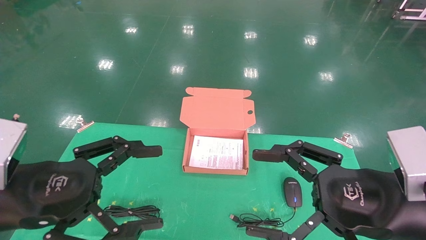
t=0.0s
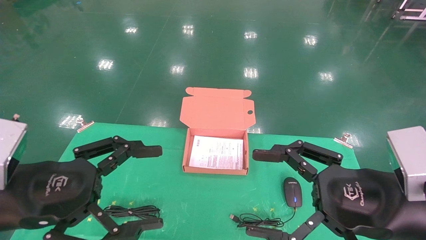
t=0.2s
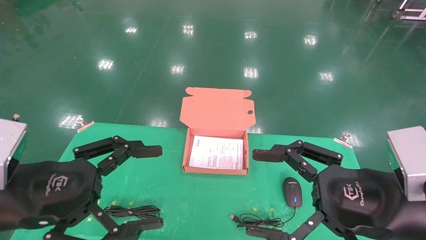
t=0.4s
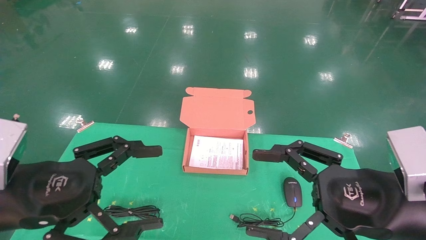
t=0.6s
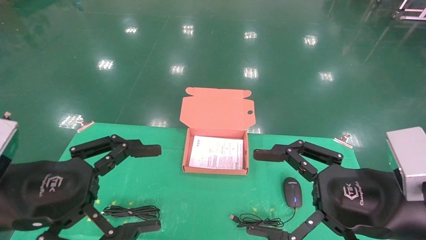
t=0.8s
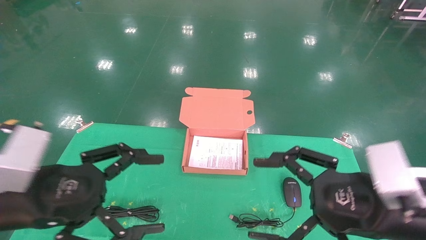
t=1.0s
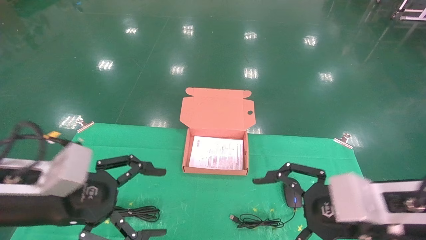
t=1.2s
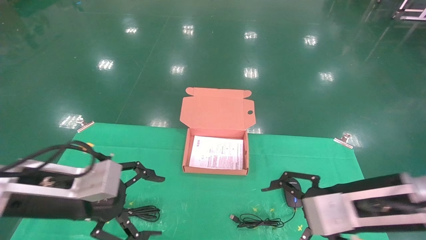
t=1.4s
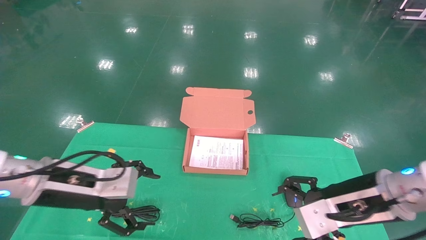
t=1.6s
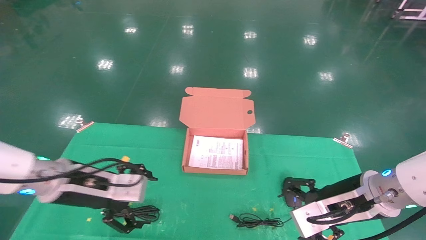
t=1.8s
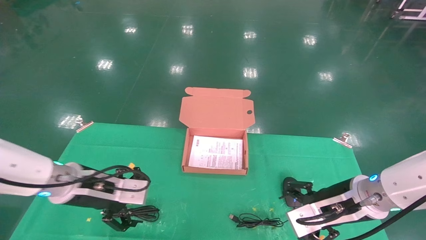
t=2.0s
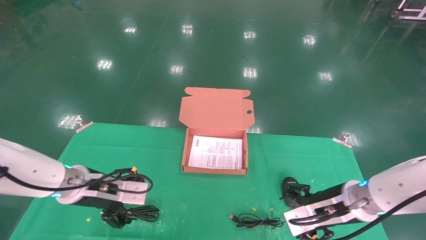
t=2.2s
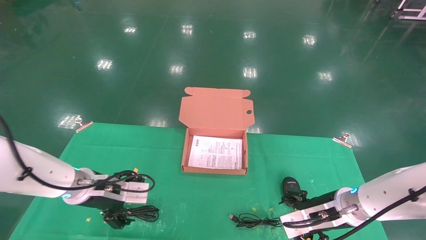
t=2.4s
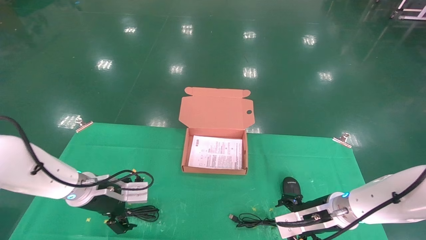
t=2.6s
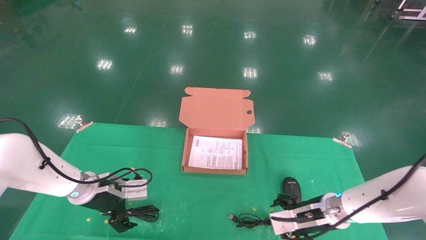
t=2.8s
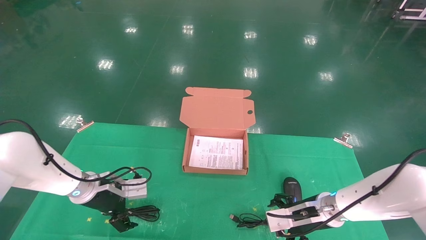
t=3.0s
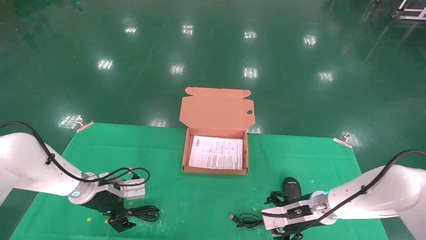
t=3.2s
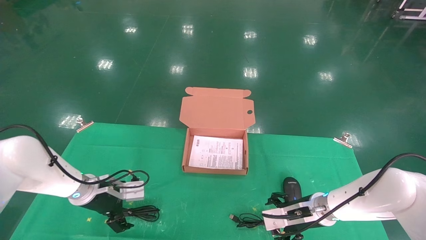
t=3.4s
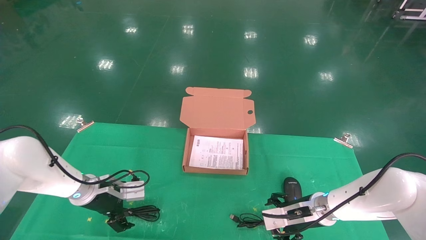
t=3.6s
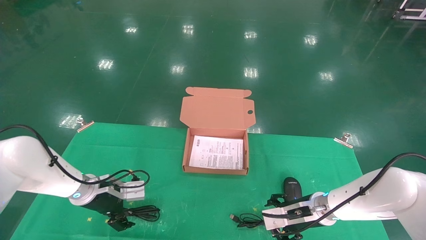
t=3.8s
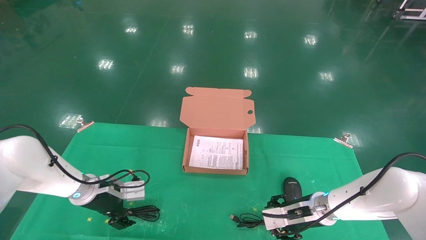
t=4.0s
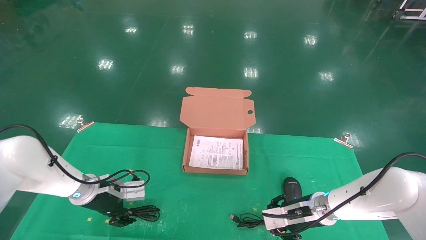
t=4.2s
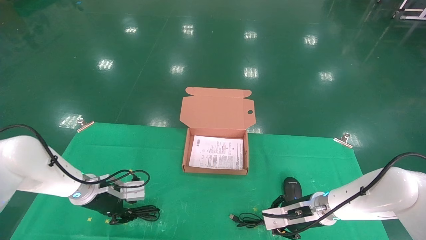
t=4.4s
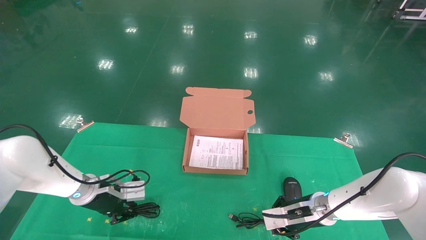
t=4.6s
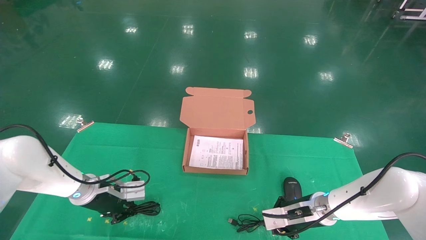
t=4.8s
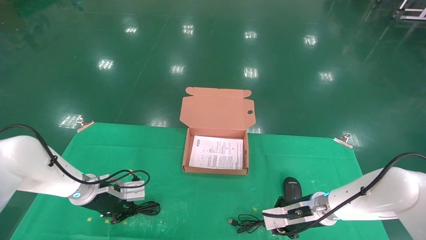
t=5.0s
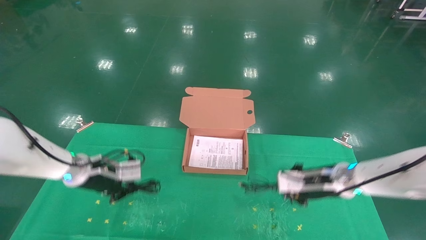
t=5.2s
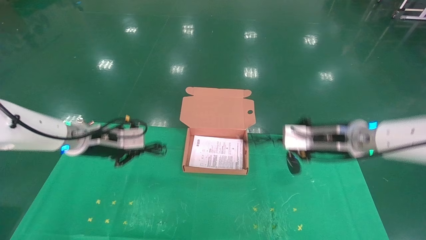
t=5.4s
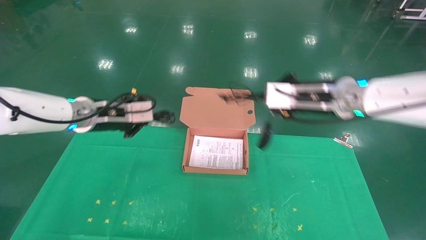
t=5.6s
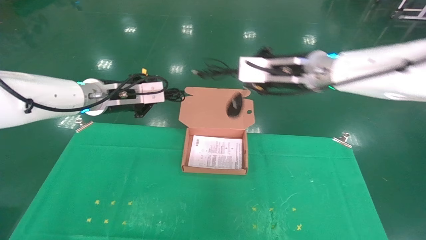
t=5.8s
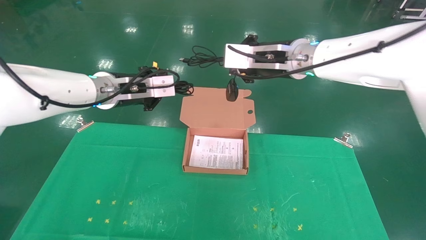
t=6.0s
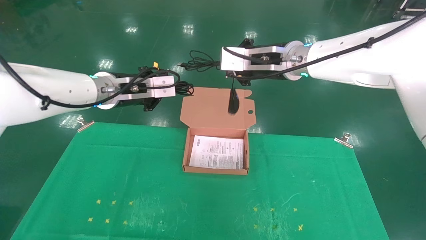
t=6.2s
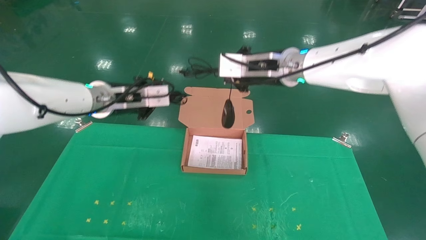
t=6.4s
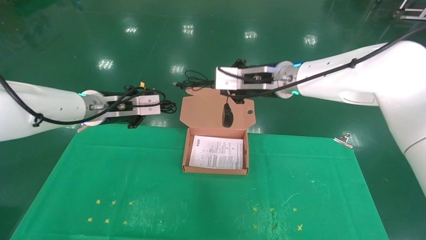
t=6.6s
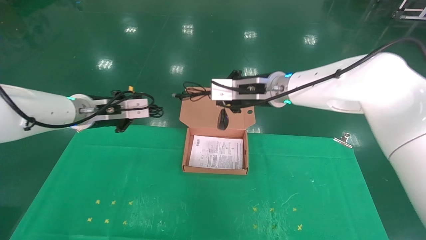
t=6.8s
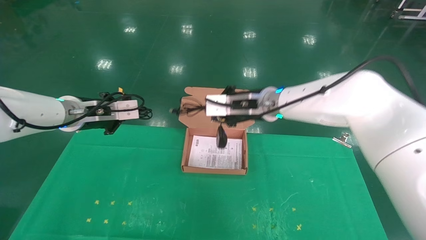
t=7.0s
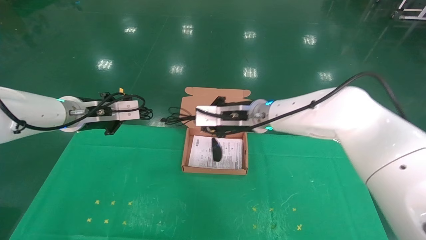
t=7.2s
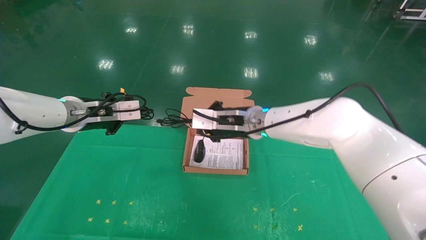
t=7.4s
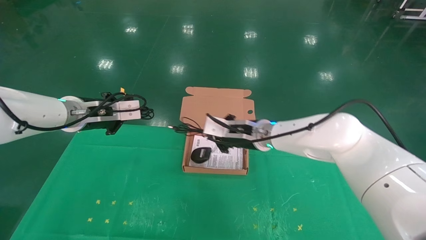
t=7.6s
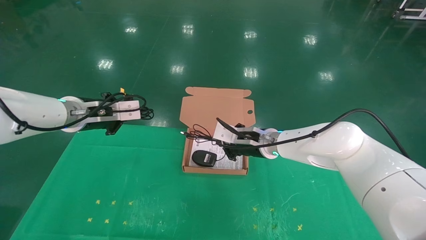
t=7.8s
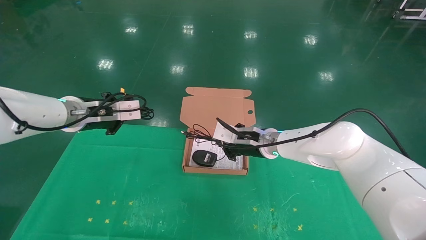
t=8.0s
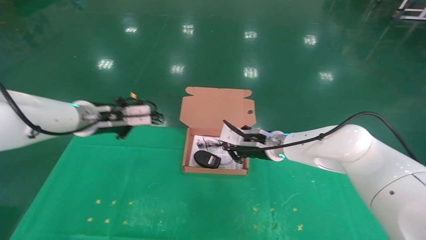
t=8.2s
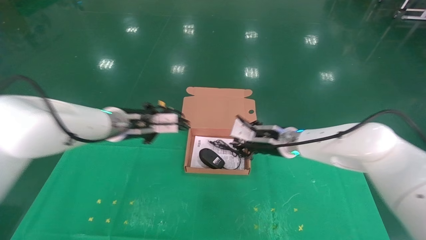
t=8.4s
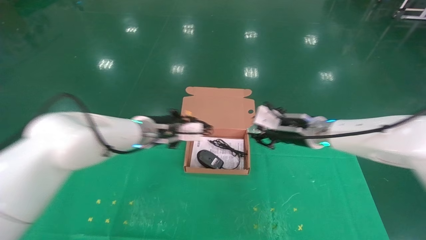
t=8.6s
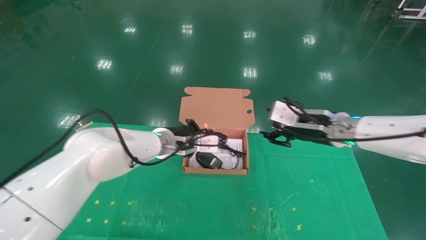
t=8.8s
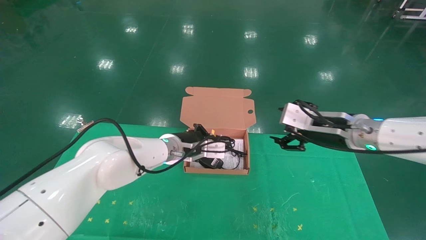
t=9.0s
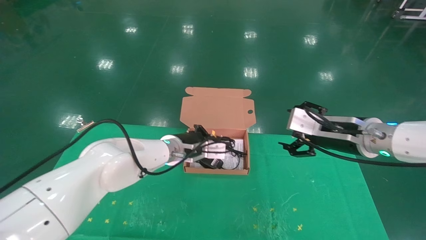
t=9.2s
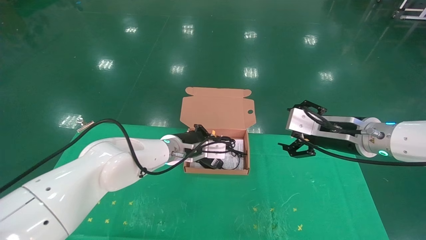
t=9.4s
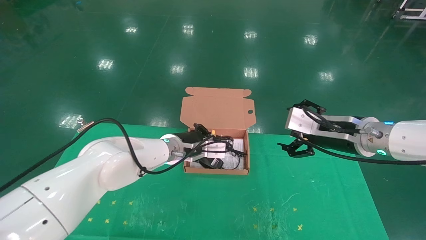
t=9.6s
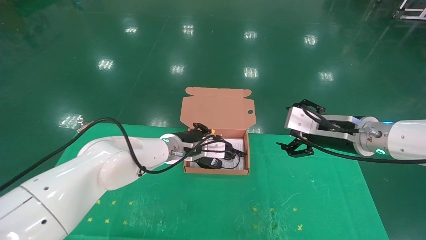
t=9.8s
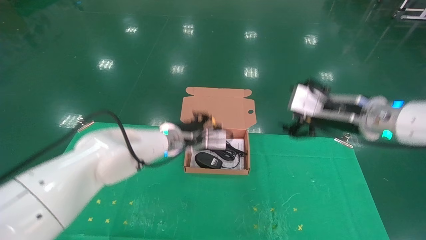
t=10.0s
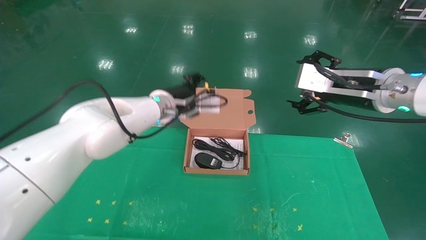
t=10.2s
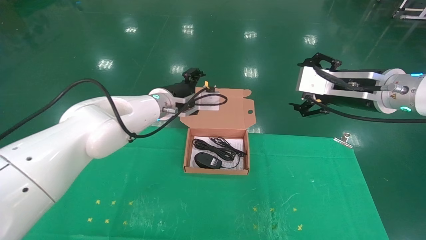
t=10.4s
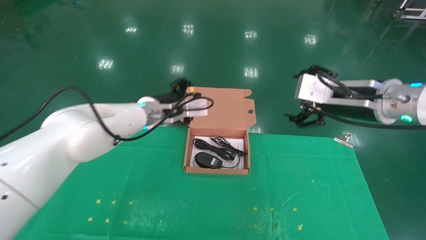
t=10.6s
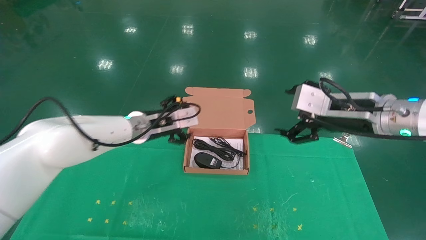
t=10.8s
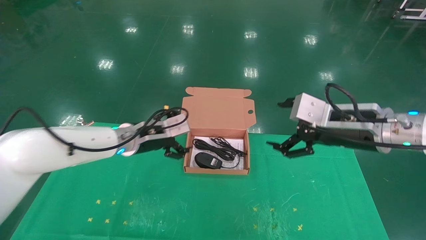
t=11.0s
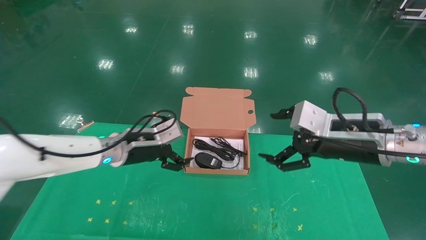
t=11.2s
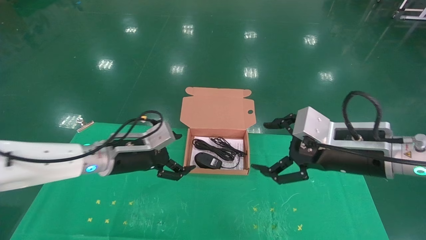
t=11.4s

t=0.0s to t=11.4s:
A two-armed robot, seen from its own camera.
Task of the whole recording: grasp data cable left put into box grasp mouse right put into box.
Step, t=1.0s to t=5.2s: Grab and pick up both the mouse and power cord from the accessory packaging area at the same time.
Step, t=5.4s to t=10.2s: Place the mouse and power cord into the box.
t=0.0s to t=1.4s: The grippers both shift forward by approximately 5 cm.
t=1.4s to t=2.8s: The grippers both shift forward and downward by roughly 20 cm.
t=2.8s to t=4.2s: The right gripper closes its fingers.
t=4.2s to t=5.6s: The grippers both shift upward by some 20 cm. The left gripper closes up, while the right gripper closes up.
t=5.6s to t=7.2s: The right gripper heads to the left, covering some 15 cm.
t=7.2s to t=8.6s: The right gripper moves to the right, some 15 cm. The left gripper shifts some 15 cm to the right and downward.
t=8.6s to t=10.0s: The right gripper goes about 10 cm backward, upward and to the right, and opens.
t=10.0s to t=11.4s: The left gripper moves to the left and backward, about 15 cm, and opens its fingers. The right gripper shifts roughly 5 cm backward.
